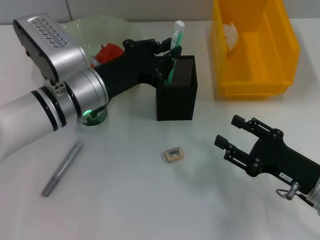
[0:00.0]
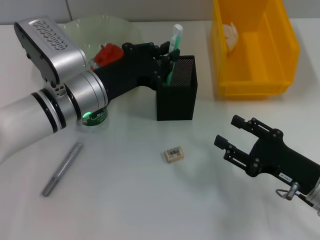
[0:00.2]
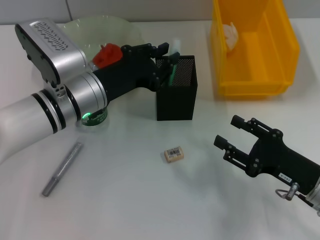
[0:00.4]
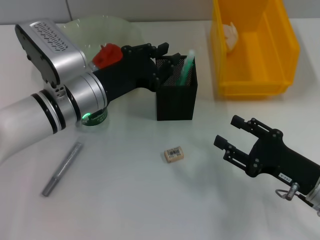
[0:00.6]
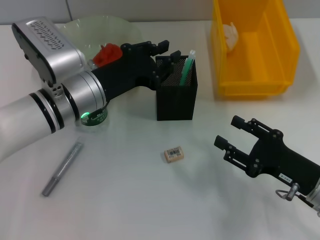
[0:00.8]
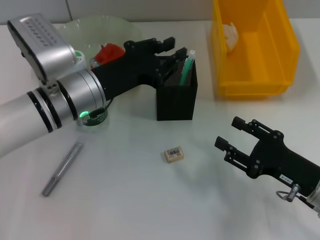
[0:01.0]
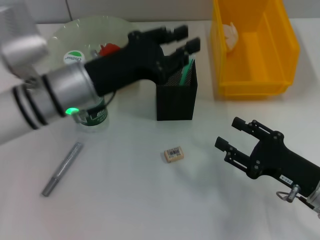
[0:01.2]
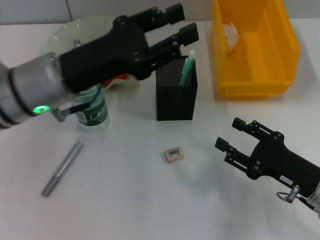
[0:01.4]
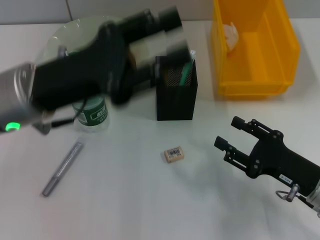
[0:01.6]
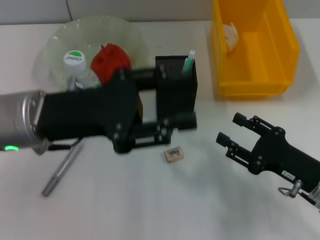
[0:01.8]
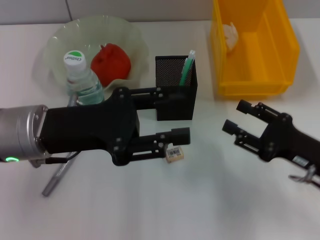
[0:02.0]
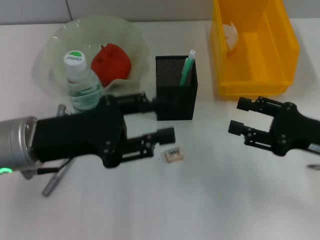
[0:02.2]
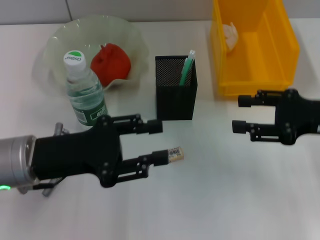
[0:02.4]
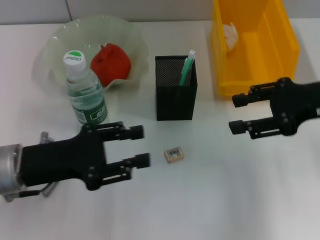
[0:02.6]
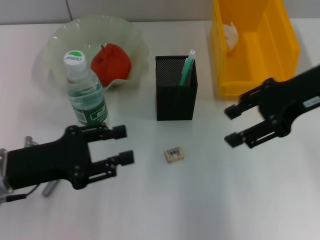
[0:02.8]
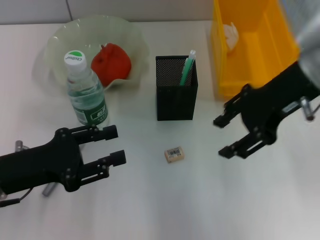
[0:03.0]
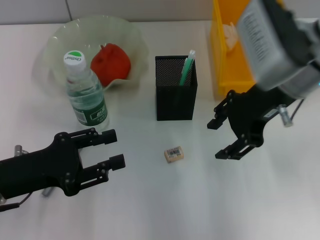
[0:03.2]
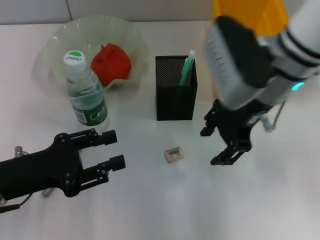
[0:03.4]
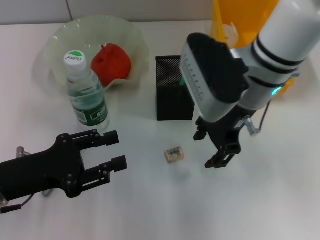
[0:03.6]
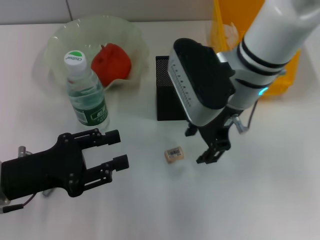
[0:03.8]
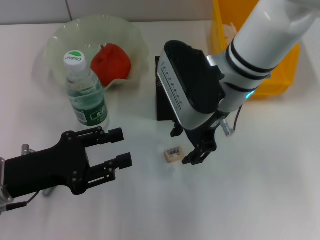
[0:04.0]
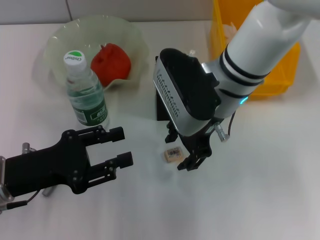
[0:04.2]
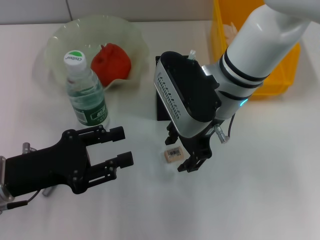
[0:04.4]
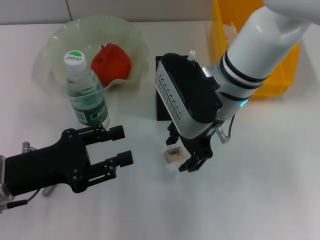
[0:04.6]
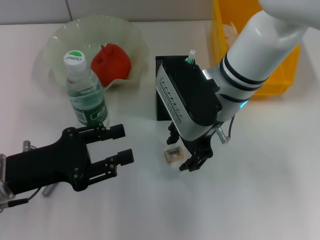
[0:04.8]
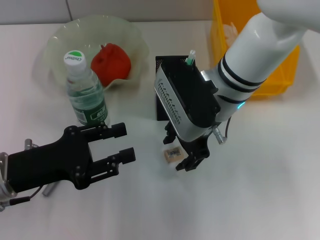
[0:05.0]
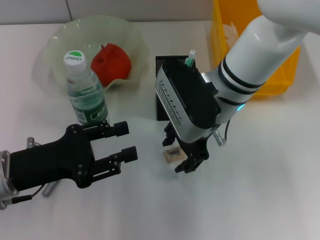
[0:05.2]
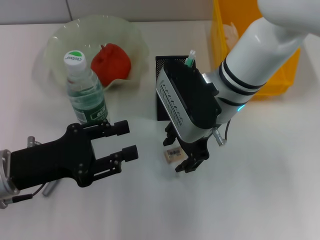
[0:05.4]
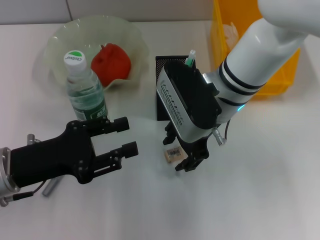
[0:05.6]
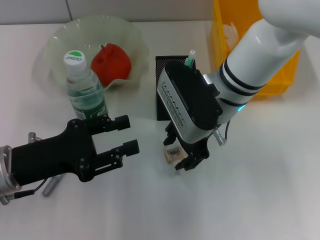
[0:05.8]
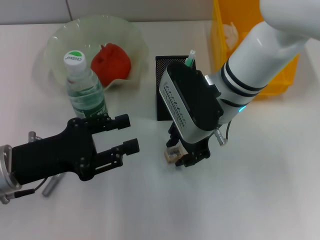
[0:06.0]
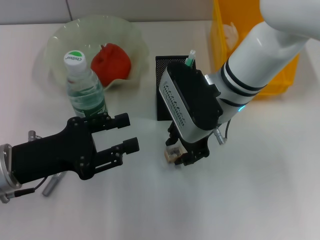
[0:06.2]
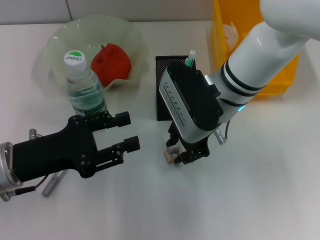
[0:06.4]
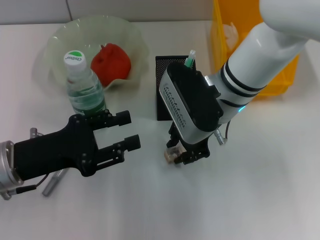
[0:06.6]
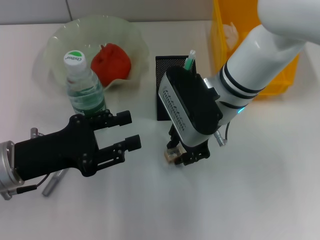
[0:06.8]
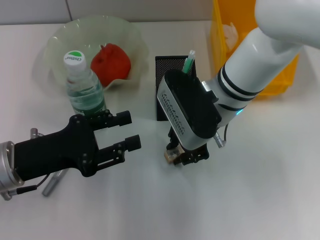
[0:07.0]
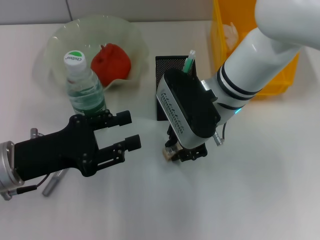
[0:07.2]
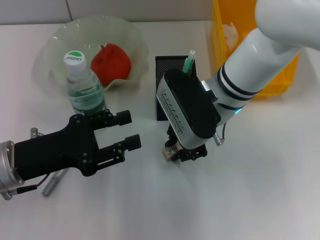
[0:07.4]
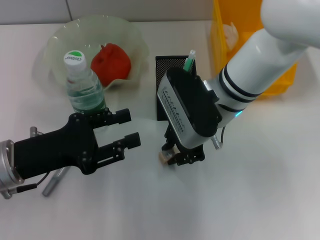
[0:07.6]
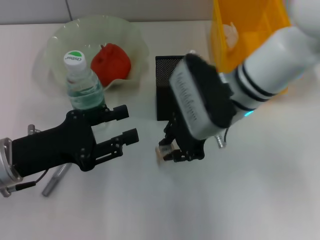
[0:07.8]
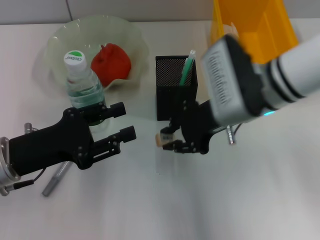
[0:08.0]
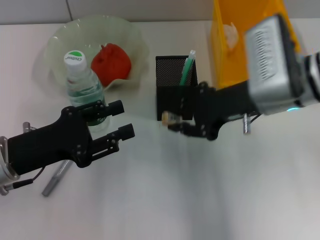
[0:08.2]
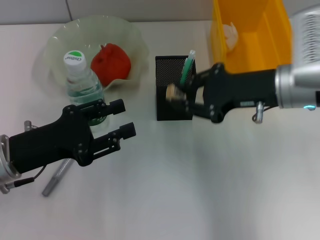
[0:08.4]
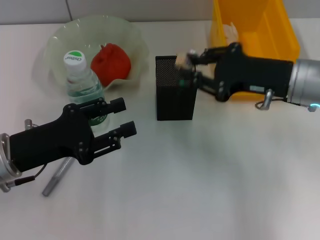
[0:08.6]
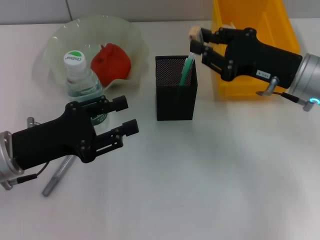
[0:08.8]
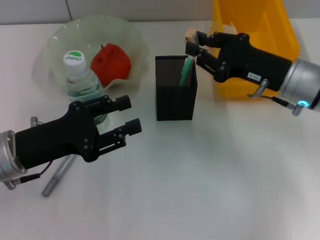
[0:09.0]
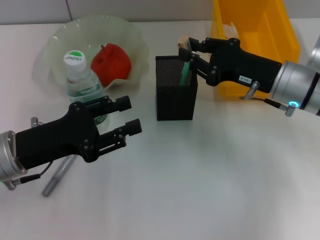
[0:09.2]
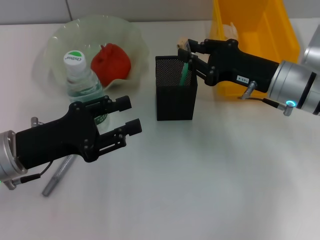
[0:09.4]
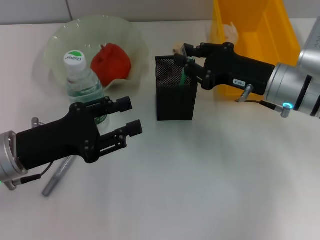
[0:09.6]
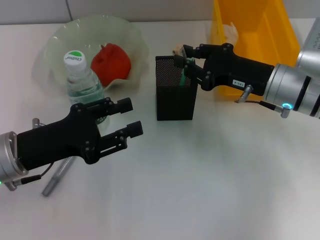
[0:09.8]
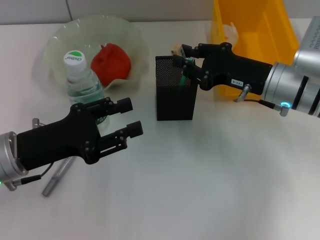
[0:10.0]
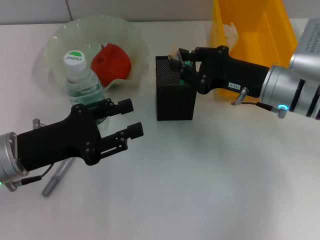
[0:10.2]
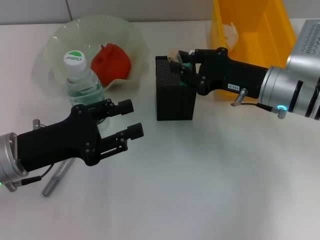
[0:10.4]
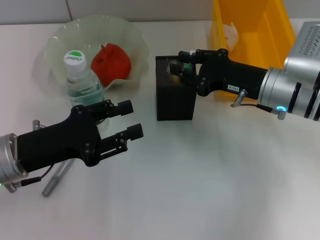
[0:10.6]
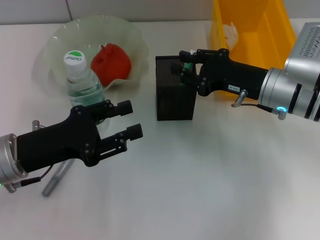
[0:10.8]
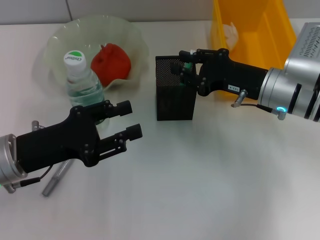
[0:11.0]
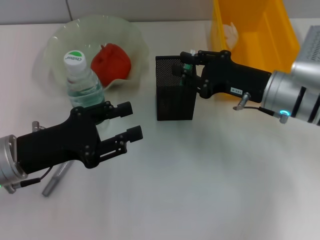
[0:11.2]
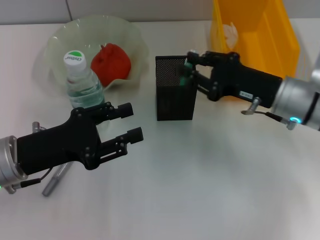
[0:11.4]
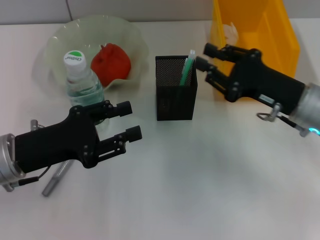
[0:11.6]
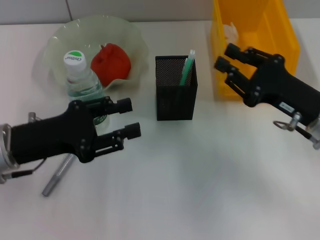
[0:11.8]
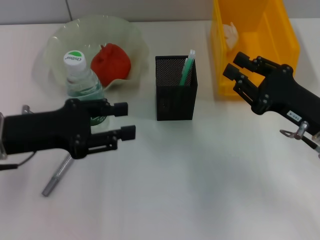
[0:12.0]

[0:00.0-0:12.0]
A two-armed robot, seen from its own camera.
Step, 0:01.0 to 0:07.2: Grab the eraser with the right hand.
Step, 0:07.4 to 0:11.0: Put the eraser into the pen holder with the right hand.
0:00.0 to 0:01.6: The left gripper is displaced upward by some 5 cm, and opens up.
0:01.6 to 0:03.0: The right gripper moves upward and forward, some 25 cm. The left gripper moves downward, to the left and backward, approximately 15 cm.
0:03.0 to 0:04.4: The right gripper goes some 15 cm to the left and downward.
0:04.4 to 0:06.0: The grippers stay close to where they were, moving slightly.
0:06.0 to 0:07.6: The right gripper closes its fingers.
0:07.6 to 0:09.0: The right gripper is displaced to the right by some 15 cm.
0:09.0 to 0:10.4: The grippers make only small movements.
0:10.4 to 0:12.0: The right gripper goes some 10 cm backward and to the right.

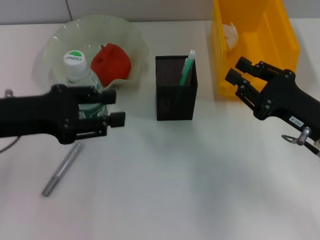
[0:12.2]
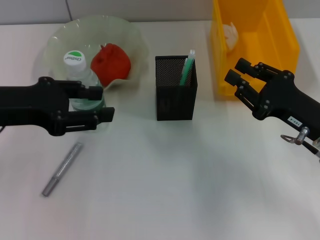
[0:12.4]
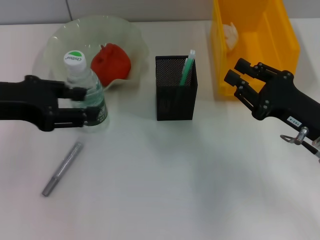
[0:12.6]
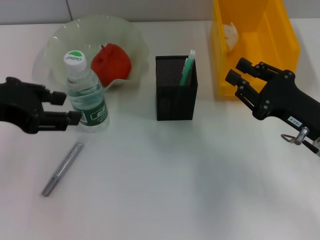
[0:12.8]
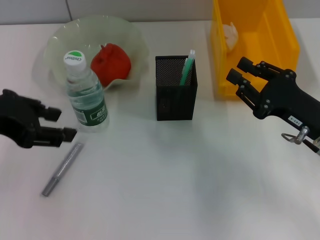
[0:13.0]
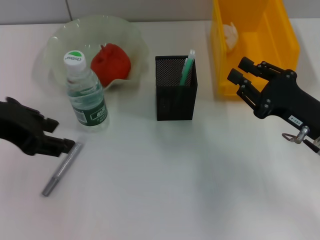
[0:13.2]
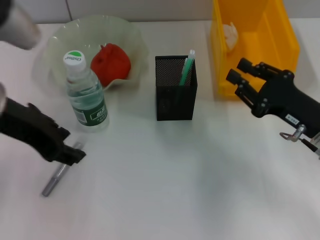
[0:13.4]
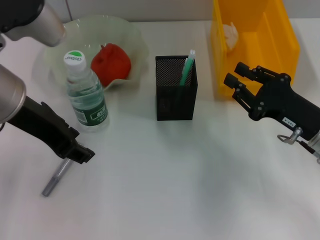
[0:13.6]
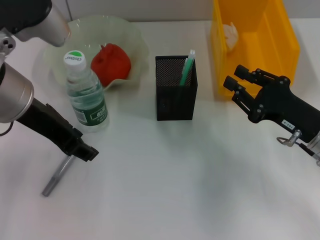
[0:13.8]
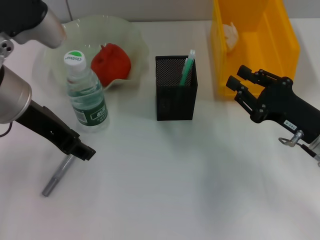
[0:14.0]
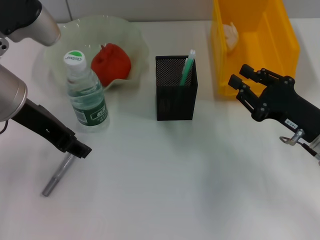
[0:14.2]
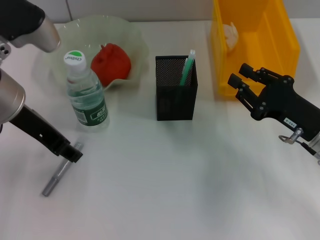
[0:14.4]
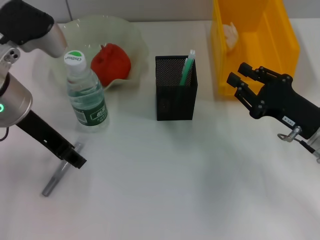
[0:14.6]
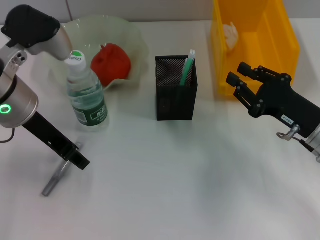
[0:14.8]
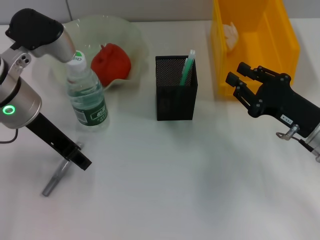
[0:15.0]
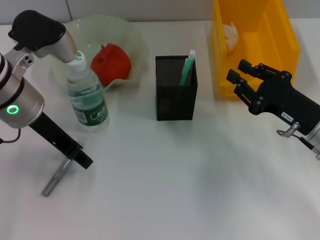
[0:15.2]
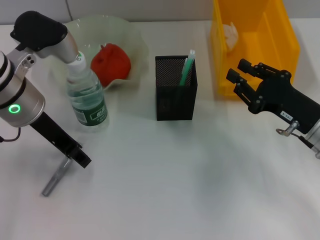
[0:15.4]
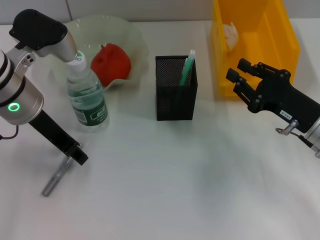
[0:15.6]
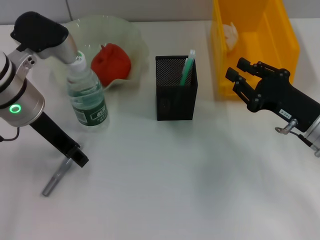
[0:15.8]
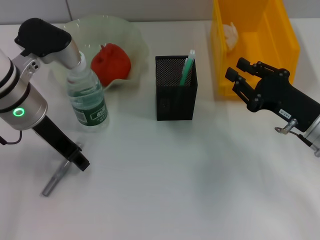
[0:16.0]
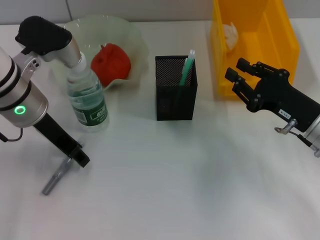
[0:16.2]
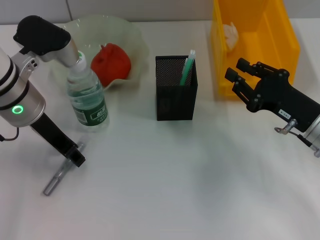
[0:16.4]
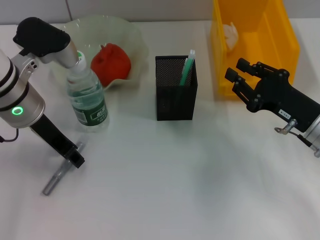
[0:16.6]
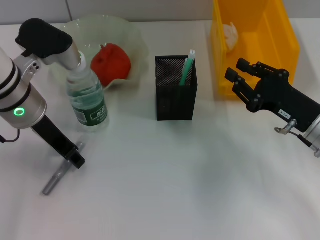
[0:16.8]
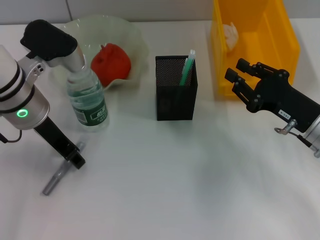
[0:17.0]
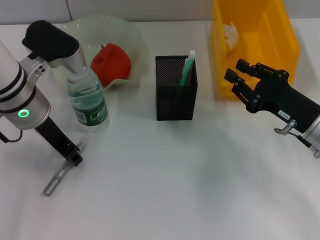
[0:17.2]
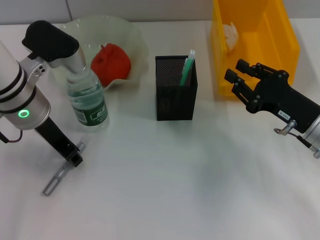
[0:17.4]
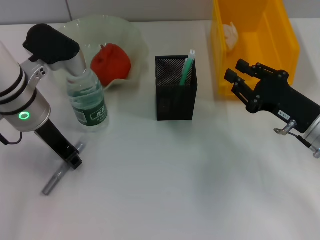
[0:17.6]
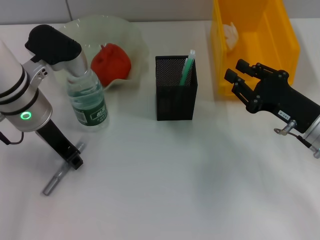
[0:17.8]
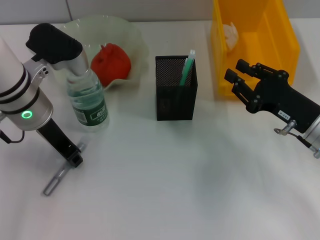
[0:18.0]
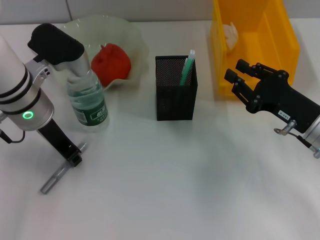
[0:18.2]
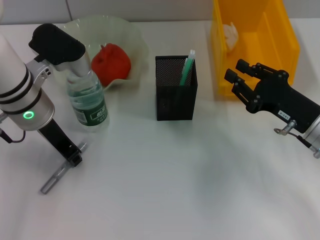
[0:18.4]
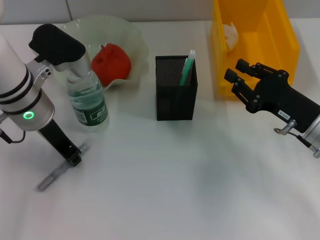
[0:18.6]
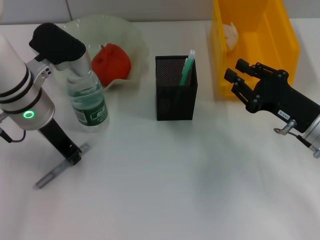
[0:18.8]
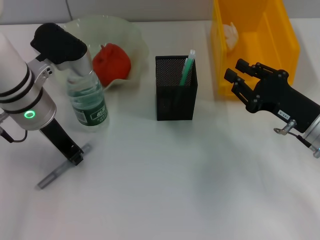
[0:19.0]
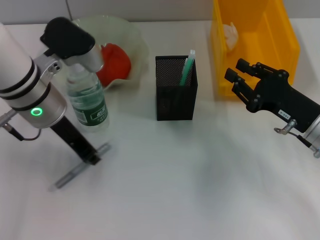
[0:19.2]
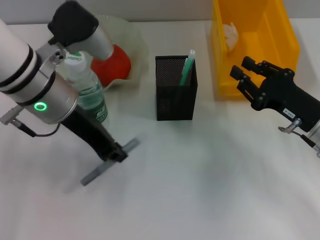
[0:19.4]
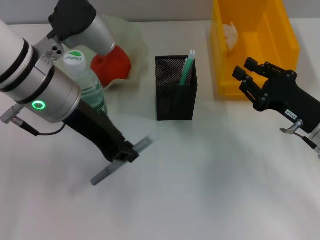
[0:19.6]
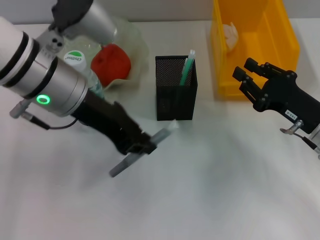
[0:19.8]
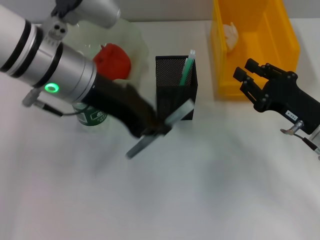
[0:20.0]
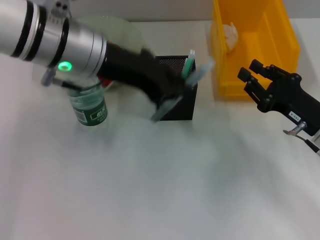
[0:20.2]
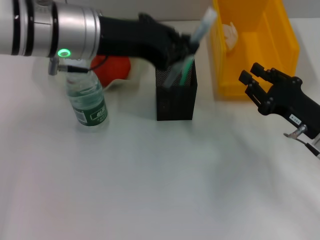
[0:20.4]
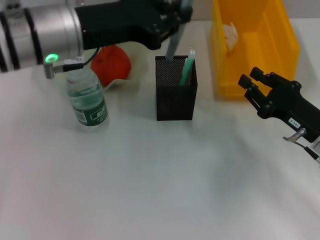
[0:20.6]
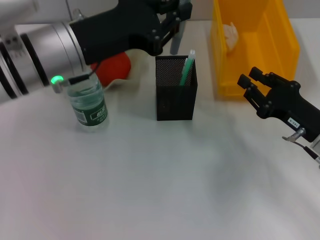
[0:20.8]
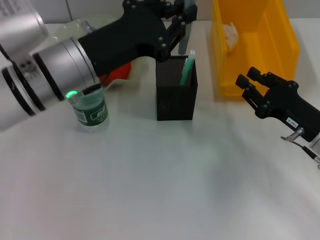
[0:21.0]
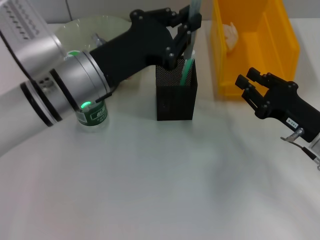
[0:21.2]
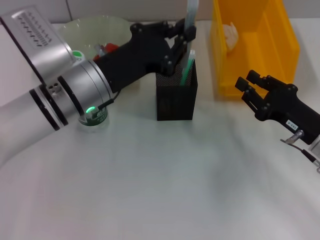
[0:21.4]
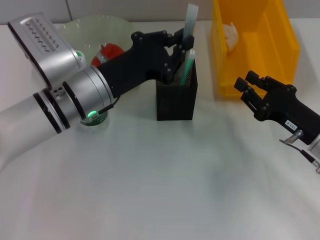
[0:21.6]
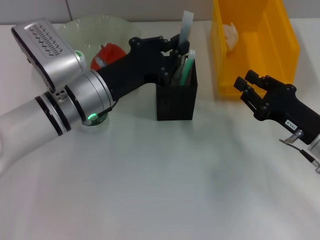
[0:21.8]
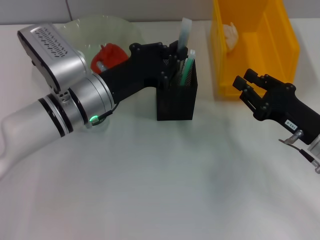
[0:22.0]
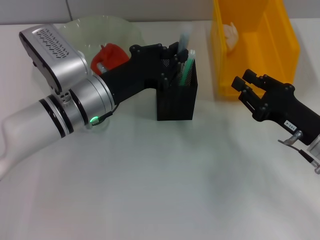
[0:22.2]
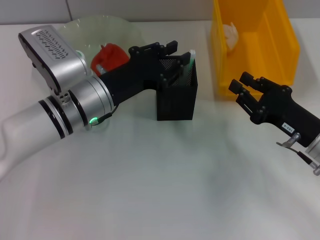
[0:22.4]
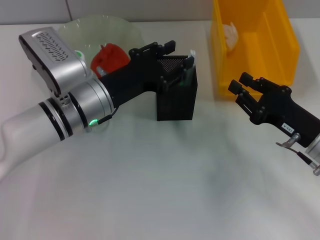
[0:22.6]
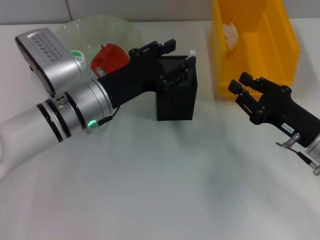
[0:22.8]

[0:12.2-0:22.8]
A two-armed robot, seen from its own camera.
Step, 0:12.2 to 0:18.4: Grab the gray glue with the left hand.
Step, 0:18.6 to 0:22.6: Place the gray glue into the pen holder with the left hand.
0:12.2 to 0:13.8: The left gripper is displaced to the right and upward by about 10 cm.
0:13.8 to 0:15.2: The left gripper changes place by about 5 cm.
0:15.2 to 0:16.8: There are only small adjustments of the grippers.
0:16.8 to 0:18.2: Both grippers stay put.
0:18.2 to 0:19.8: The left gripper moves upward, about 5 cm.
0:19.8 to 0:21.2: The left gripper goes roughly 5 cm downward.
0:21.2 to 0:22.8: The left gripper is displaced downward by about 5 cm, and opens its fingers.
